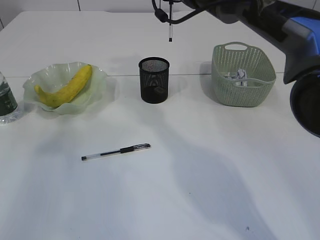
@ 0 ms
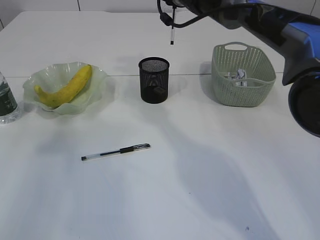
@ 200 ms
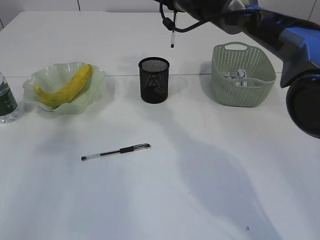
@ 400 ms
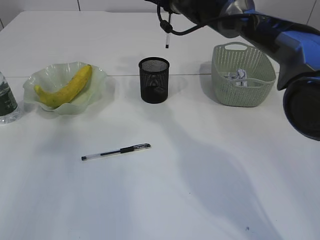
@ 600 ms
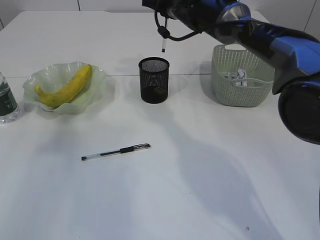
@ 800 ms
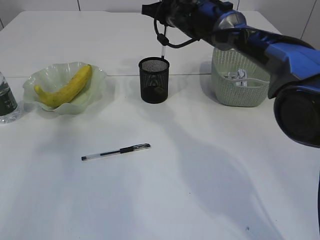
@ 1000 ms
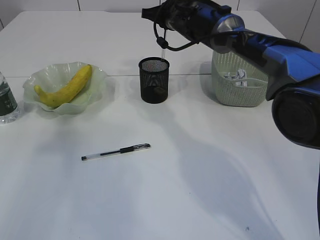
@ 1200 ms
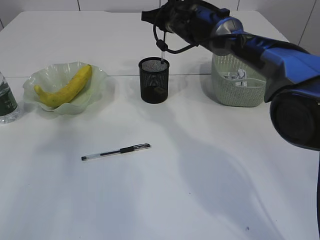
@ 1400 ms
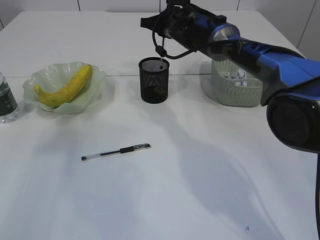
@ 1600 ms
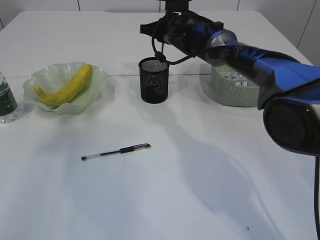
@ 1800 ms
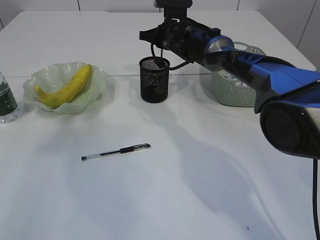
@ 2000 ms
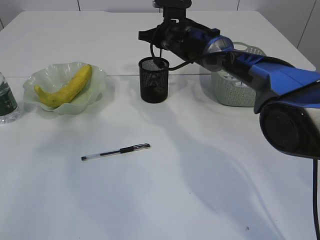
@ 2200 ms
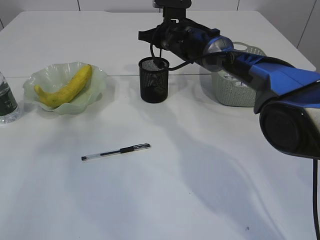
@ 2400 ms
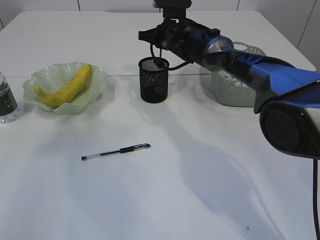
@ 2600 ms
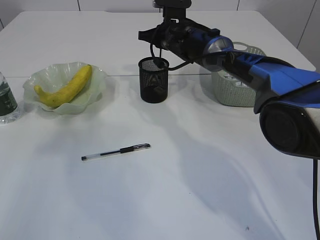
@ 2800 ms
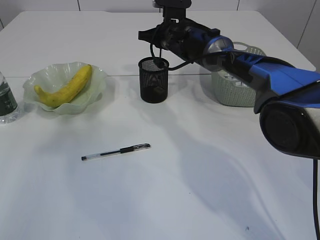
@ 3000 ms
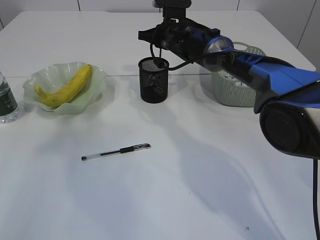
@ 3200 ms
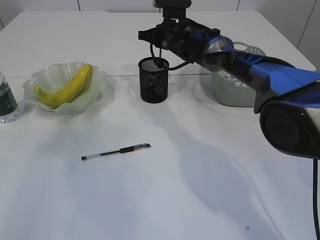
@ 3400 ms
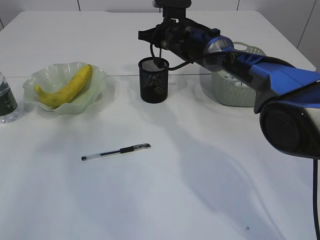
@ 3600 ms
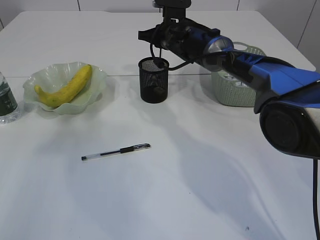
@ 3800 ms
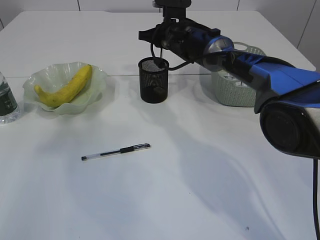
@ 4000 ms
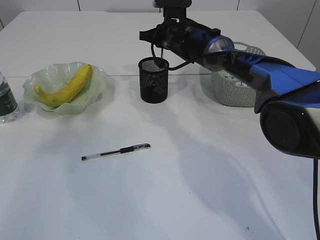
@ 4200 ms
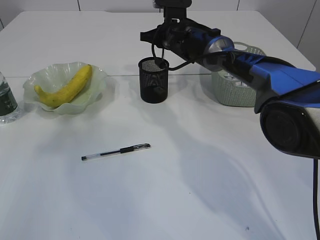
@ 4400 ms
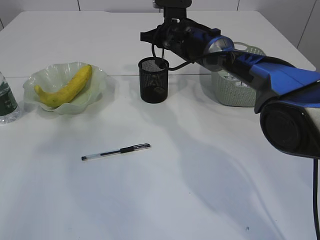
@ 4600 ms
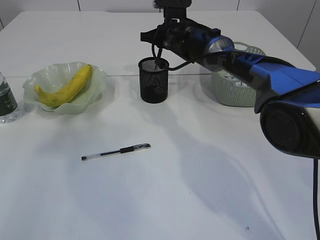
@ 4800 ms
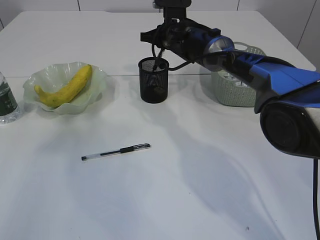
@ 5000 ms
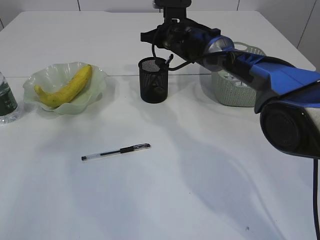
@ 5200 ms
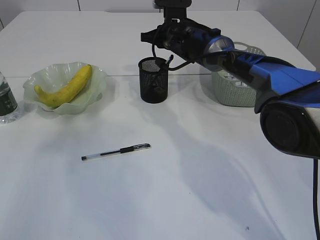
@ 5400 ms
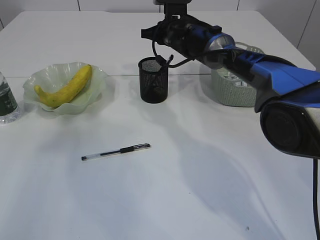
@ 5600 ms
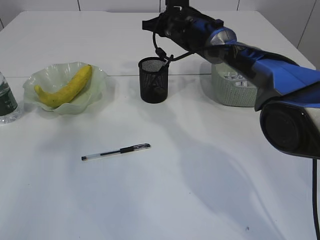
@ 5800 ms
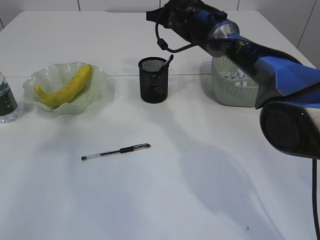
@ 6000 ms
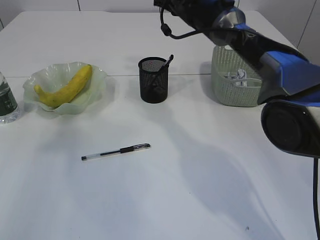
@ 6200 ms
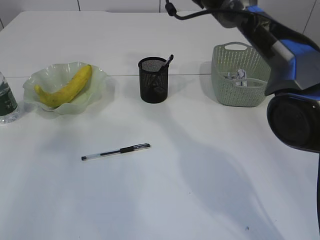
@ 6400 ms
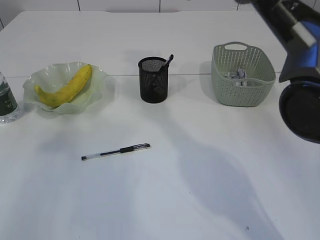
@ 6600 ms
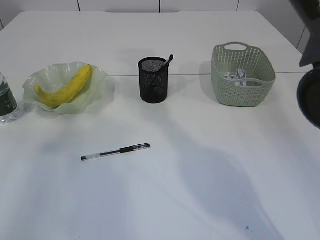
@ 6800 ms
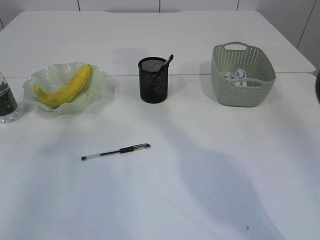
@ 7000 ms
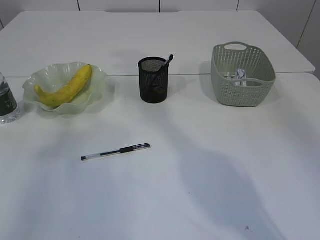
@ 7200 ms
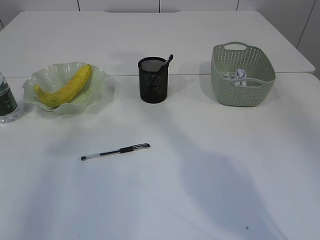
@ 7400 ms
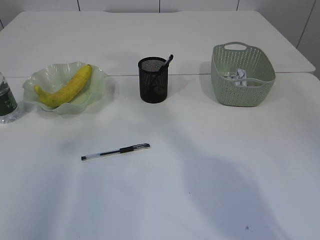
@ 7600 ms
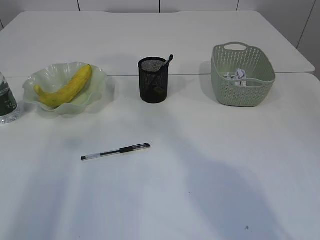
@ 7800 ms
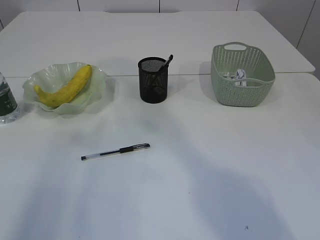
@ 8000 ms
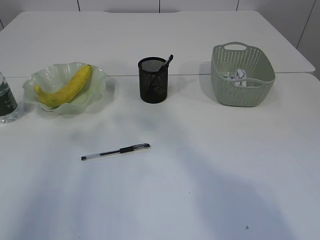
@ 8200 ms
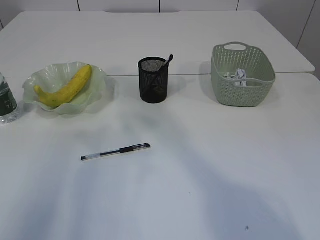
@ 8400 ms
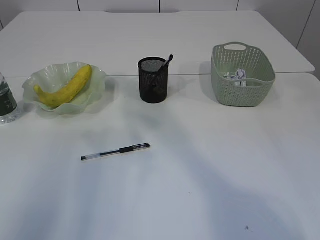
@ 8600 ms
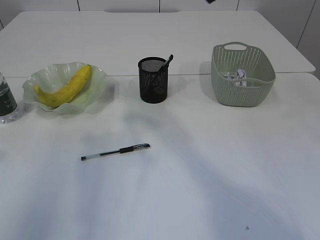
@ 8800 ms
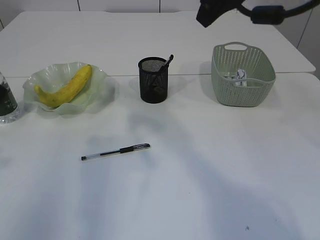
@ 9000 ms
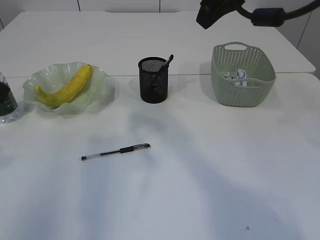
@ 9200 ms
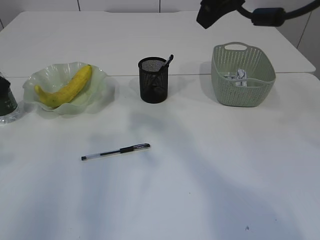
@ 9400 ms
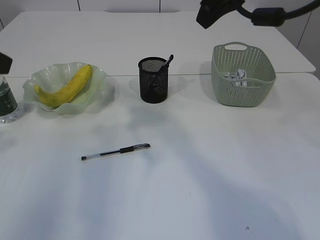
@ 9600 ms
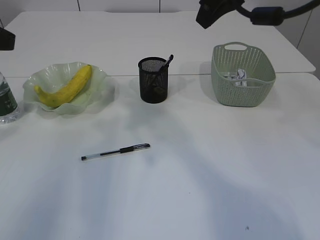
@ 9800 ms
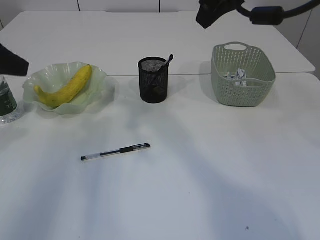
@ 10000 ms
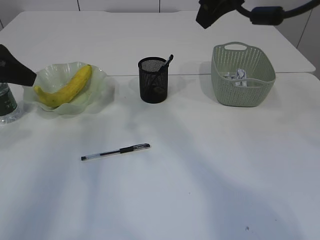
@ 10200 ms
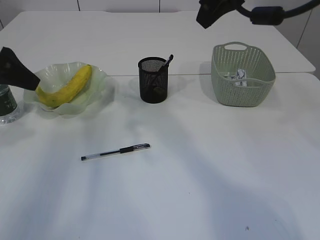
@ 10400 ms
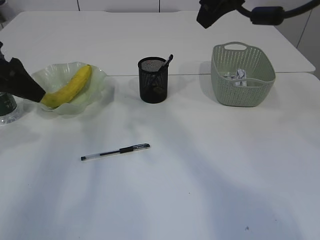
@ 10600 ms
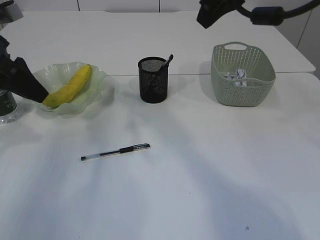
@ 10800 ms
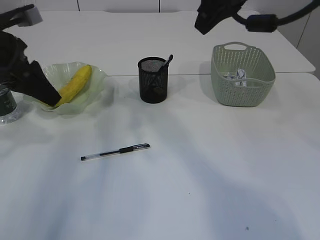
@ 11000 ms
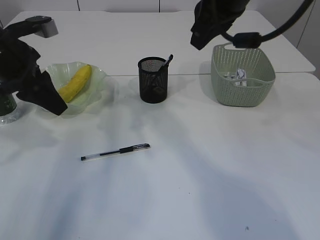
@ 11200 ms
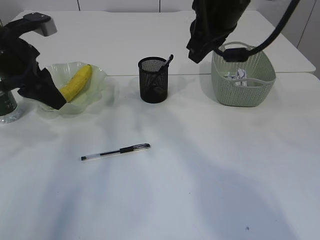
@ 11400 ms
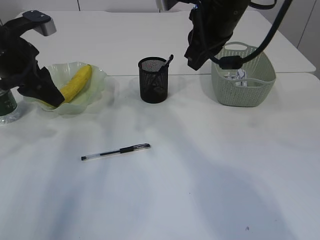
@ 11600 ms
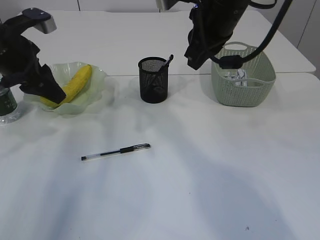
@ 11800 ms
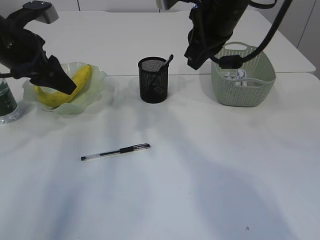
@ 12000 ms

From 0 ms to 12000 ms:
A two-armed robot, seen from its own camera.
Step, from 0 ms to 5000 ms: Place the pen into the pen holder.
From 0 ms to 1600 ms: The right gripper is displaced downward by approximately 10 cm.
From 1600 ms to 3000 ms: The grippers make only small movements.
From 3000 ms to 4400 ms: Both grippers stay about where they are.
From 4400 ms to 6000 ms: There are only small adjustments of the grippers.
From 6000 ms to 7600 ms: The right gripper goes roughly 30 cm upward and backward.
From 7600 ms to 9000 ms: The right gripper goes roughly 10 cm downward and backward; the left gripper shifts approximately 15 cm downward, forward and to the right.
From 9000 ms to 10400 ms: The left gripper goes about 10 cm forward.
From 10400 ms to 12000 ms: The left gripper shifts about 5 cm forward. Meanwhile the right gripper heads downward, covering roughly 5 cm.

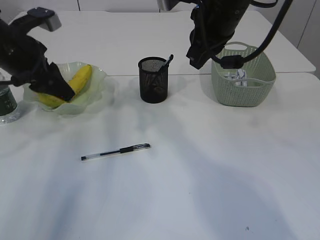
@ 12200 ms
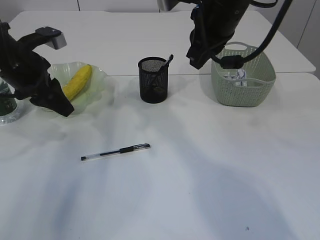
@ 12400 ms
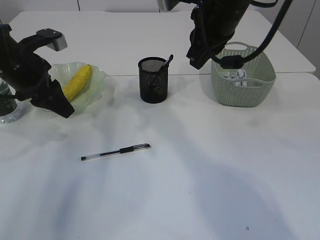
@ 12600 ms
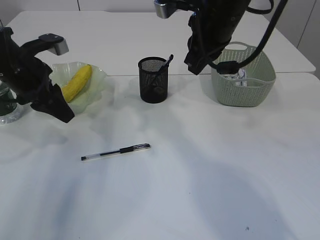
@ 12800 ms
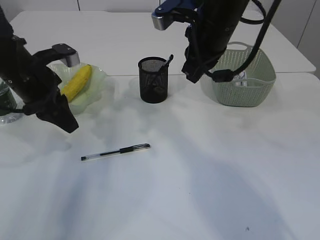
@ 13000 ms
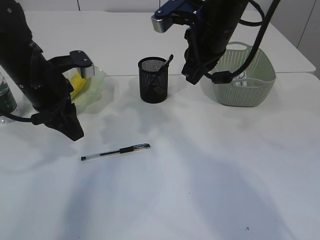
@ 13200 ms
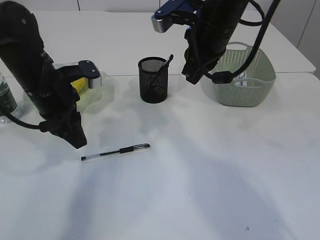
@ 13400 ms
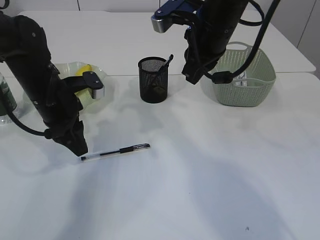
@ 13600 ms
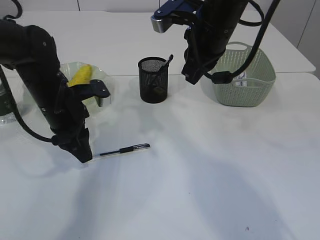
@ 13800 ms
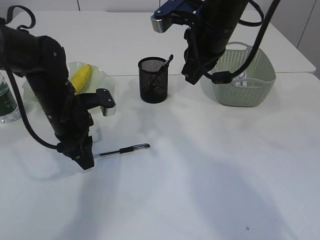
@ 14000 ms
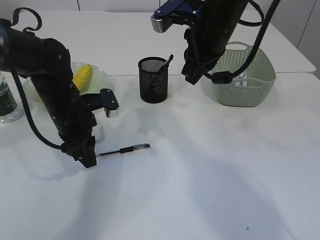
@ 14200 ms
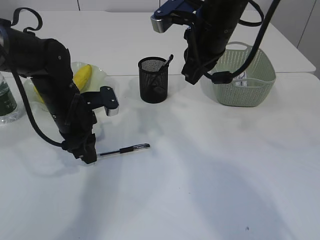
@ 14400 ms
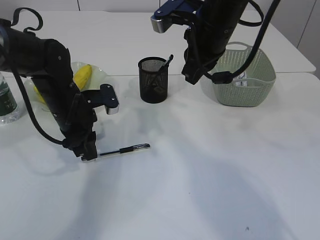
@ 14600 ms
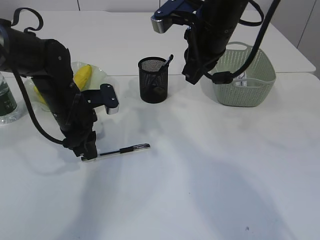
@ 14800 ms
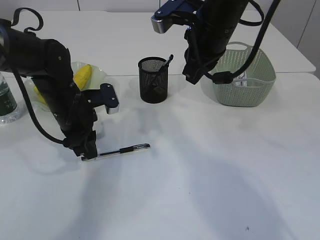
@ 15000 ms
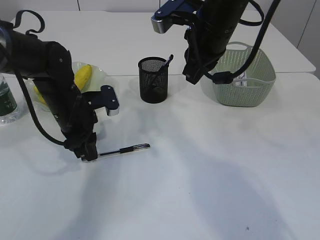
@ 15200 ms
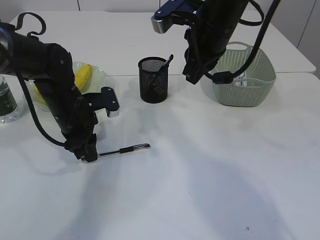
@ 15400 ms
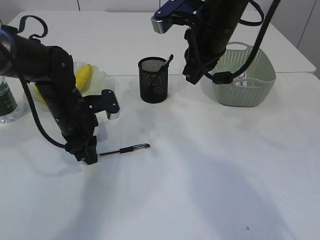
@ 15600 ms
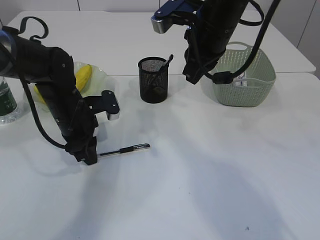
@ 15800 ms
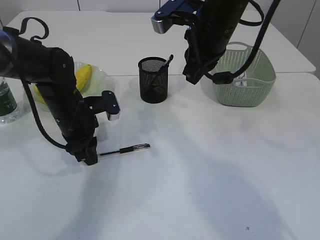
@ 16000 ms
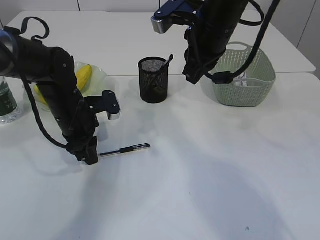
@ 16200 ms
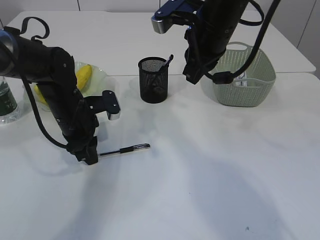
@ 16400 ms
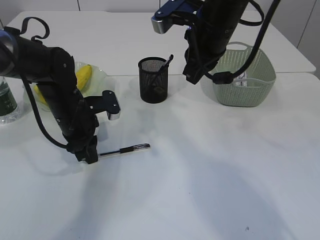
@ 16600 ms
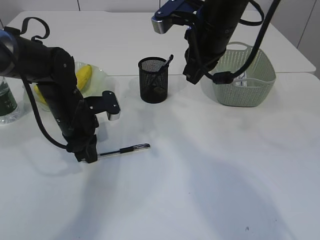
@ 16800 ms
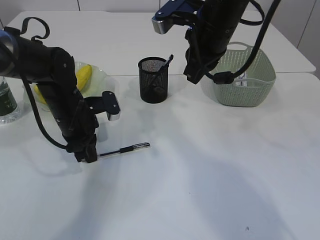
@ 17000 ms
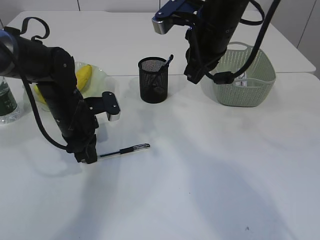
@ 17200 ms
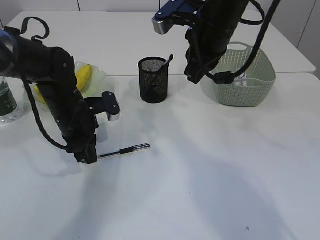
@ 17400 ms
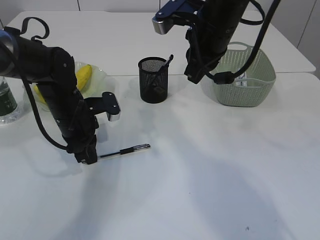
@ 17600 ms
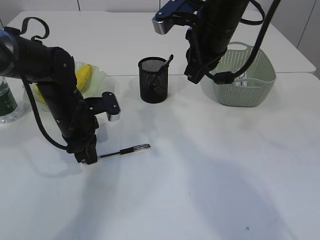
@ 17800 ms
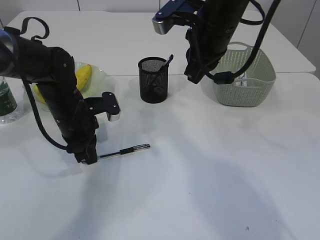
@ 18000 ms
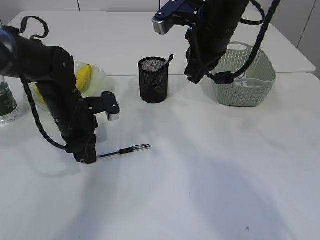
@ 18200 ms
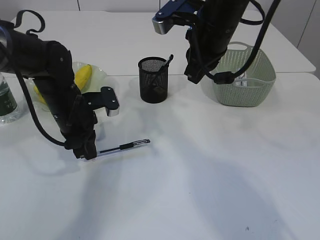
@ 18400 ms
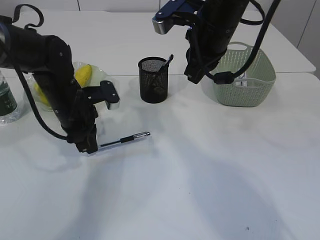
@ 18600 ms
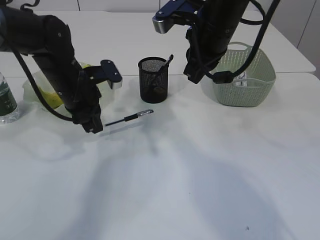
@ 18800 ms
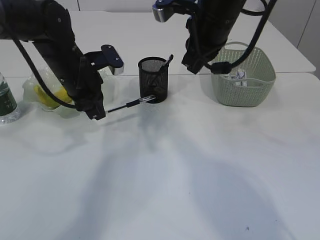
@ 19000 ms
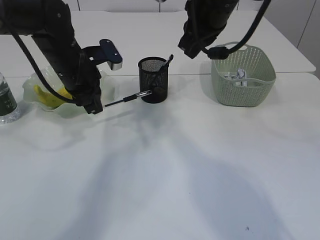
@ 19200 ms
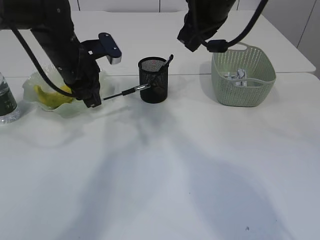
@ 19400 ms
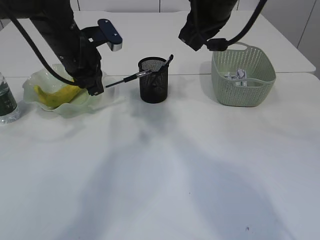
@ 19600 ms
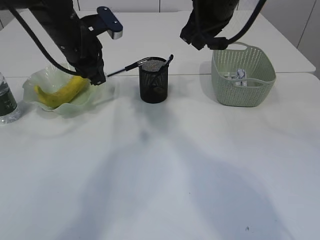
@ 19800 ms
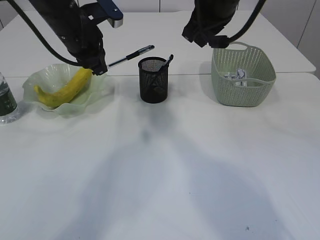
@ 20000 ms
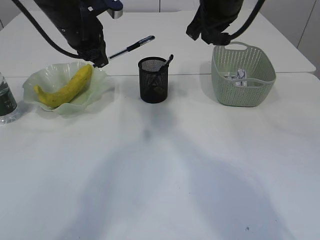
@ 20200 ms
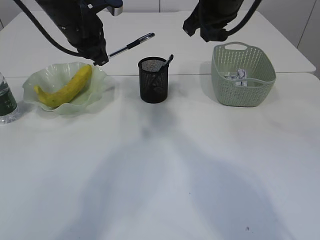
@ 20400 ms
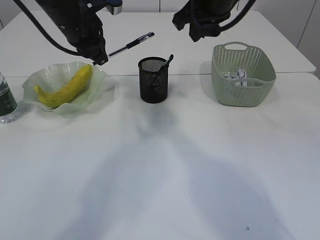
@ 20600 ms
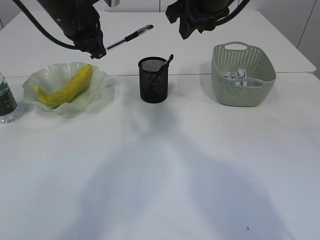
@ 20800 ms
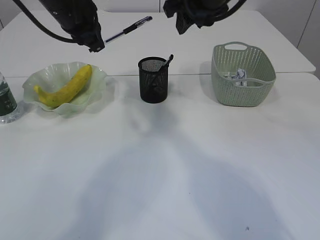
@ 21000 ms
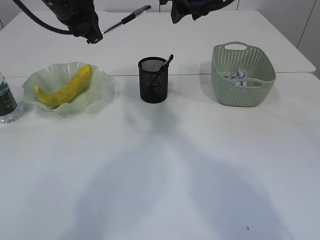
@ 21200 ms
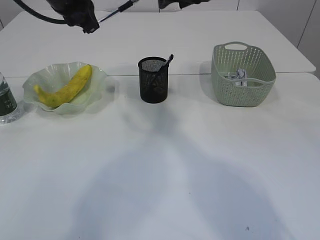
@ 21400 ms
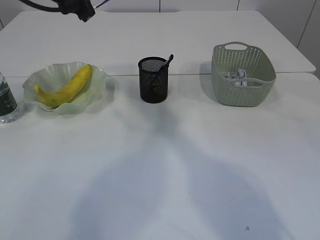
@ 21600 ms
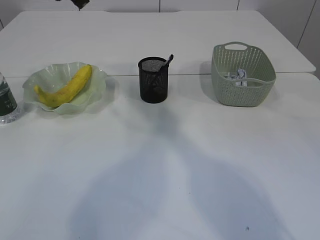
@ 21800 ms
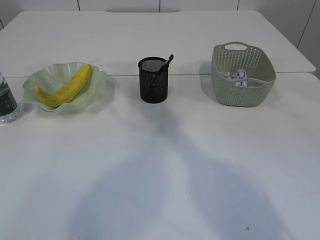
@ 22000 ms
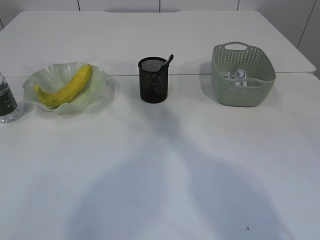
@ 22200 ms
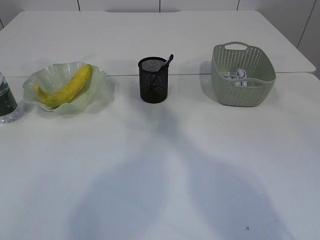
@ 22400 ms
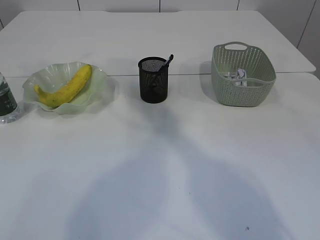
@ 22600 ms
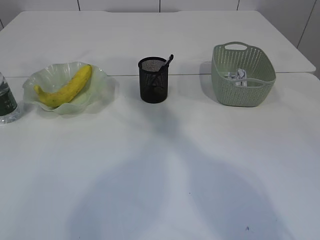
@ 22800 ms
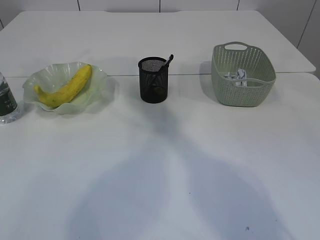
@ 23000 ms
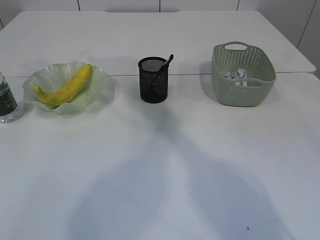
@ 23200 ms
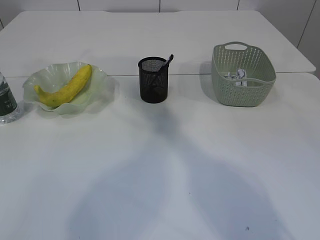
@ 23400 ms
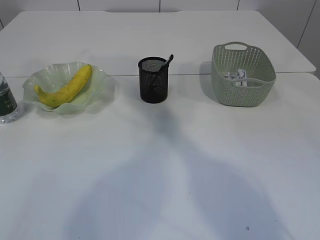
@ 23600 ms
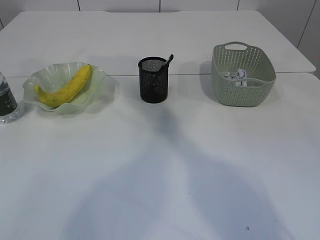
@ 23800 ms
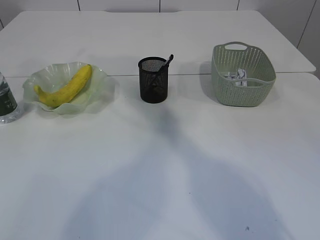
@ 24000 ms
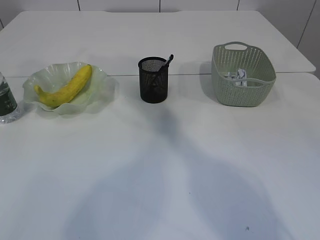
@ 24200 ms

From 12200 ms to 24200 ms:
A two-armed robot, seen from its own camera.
Step, from 12200 ms to 18800 ms: Pick up the pen with left arm.
From 12200 ms to 13800 ms: The left gripper moves downward and to the right, approximately 10 cm.
From 13800 ms to 15200 ms: The grippers move only a little.
From 15200 ms to 18200 ms: Both grippers stay put.
From 18200 ms to 19800 ms: The left gripper shifts approximately 15 cm upward and forward.
From 19800 ms to 21200 ms: The left gripper heads upward, covering approximately 10 cm; the right gripper opens.
From 21200 ms to 22600 ms: The left gripper moves upward, about 10 cm. The right gripper changes place by approximately 5 cm.
